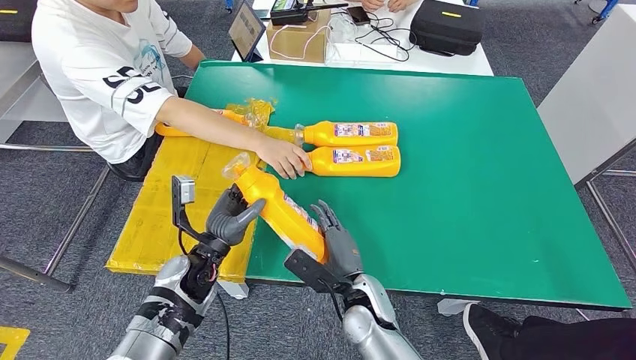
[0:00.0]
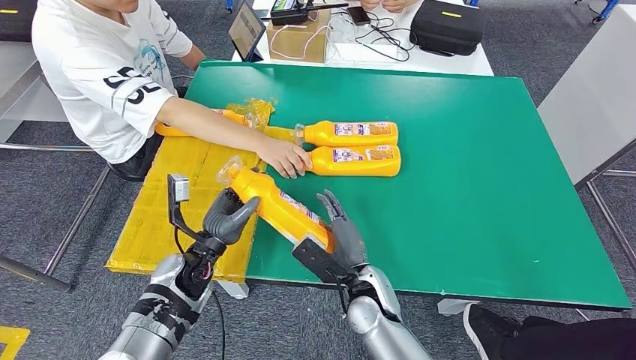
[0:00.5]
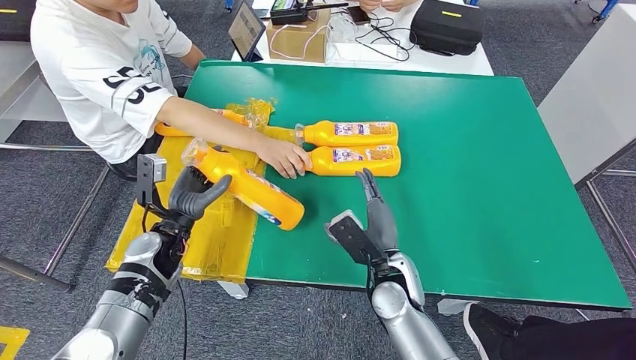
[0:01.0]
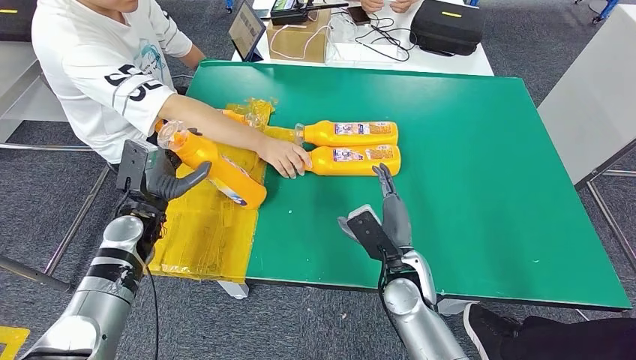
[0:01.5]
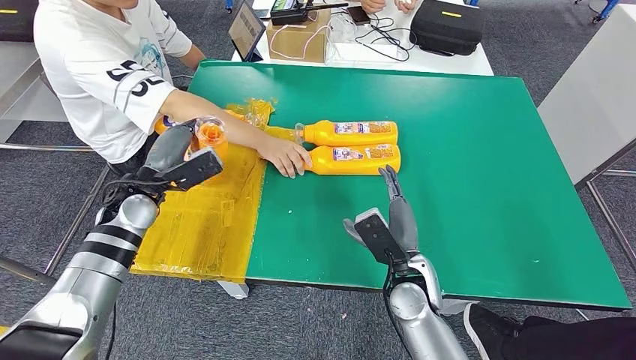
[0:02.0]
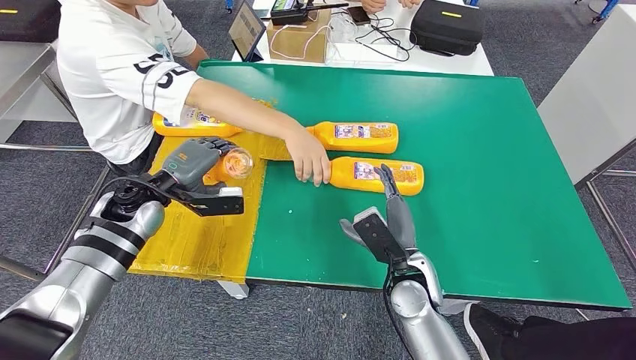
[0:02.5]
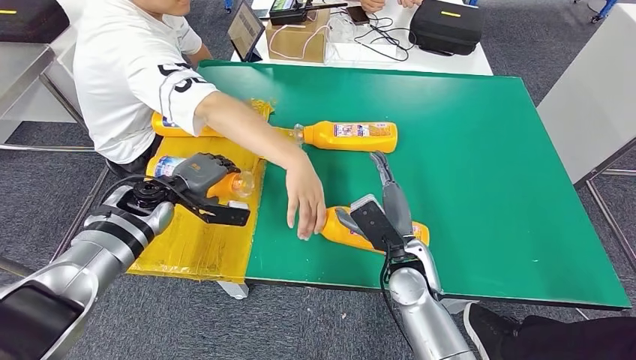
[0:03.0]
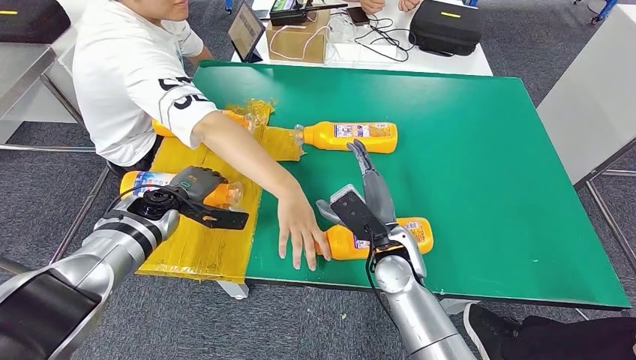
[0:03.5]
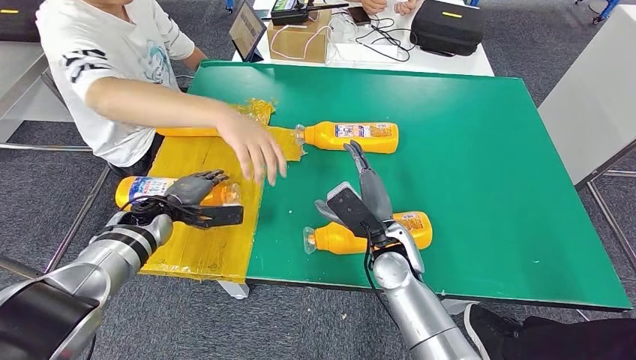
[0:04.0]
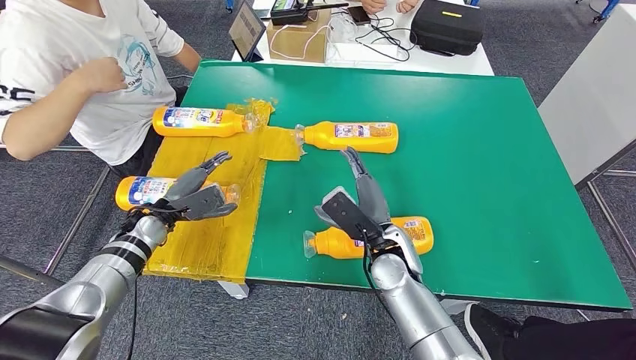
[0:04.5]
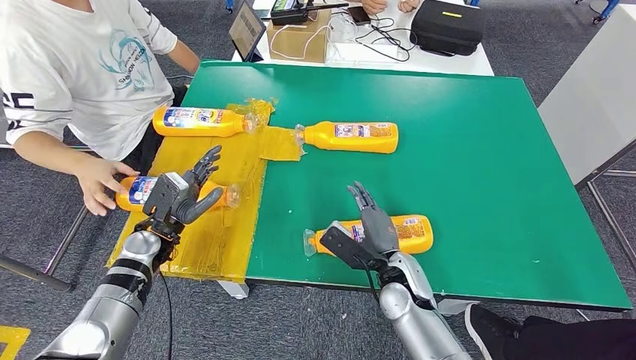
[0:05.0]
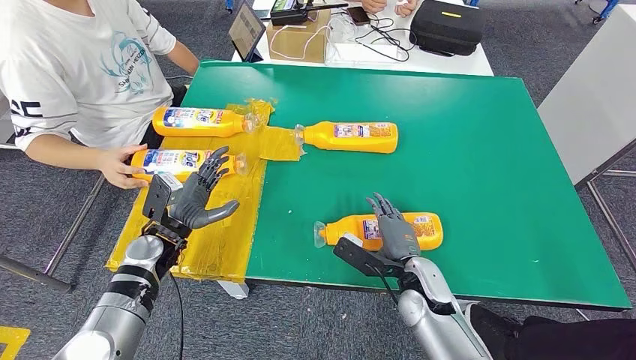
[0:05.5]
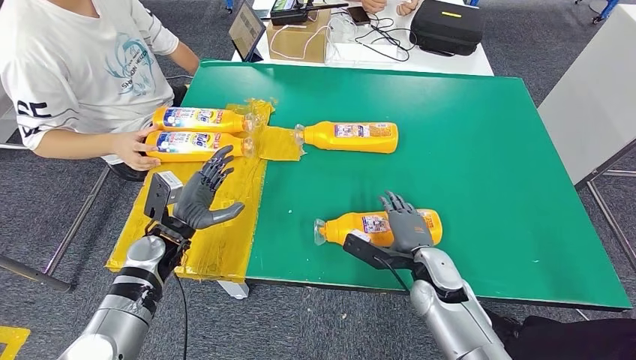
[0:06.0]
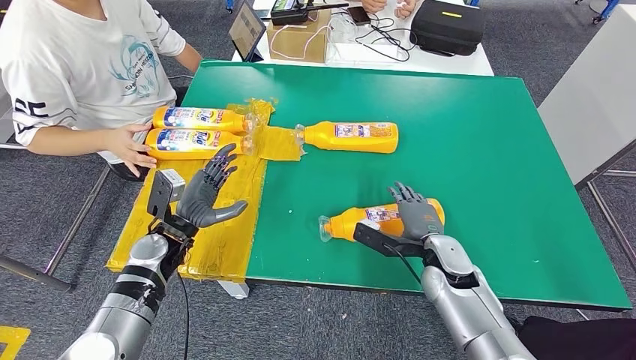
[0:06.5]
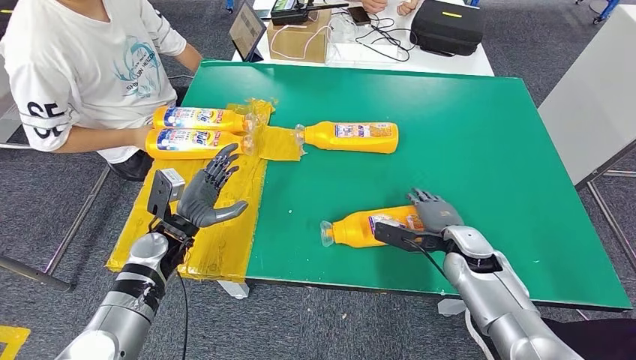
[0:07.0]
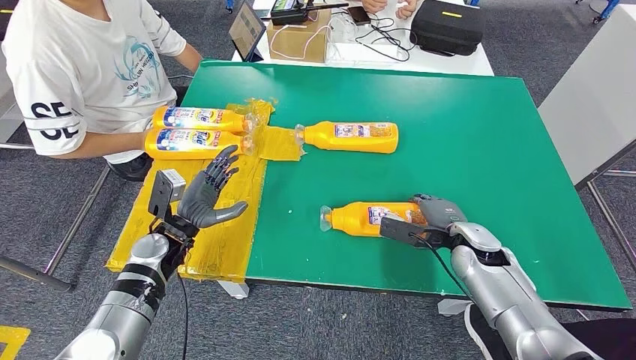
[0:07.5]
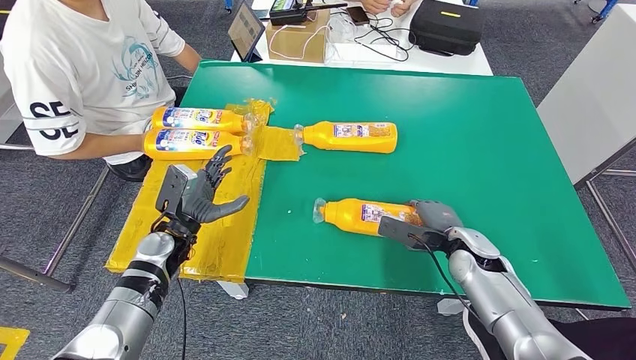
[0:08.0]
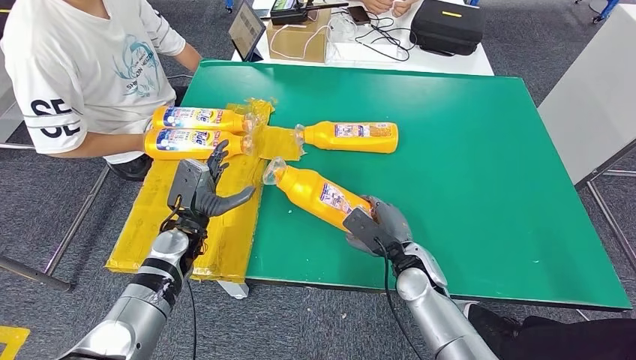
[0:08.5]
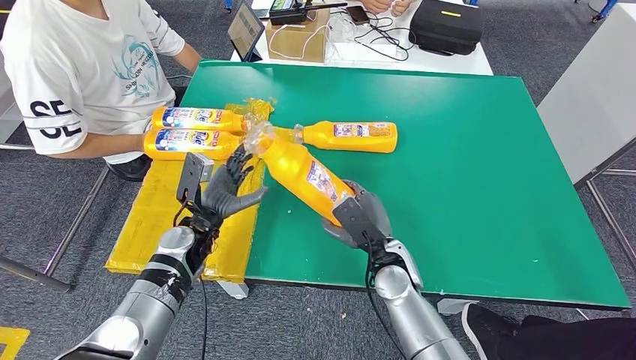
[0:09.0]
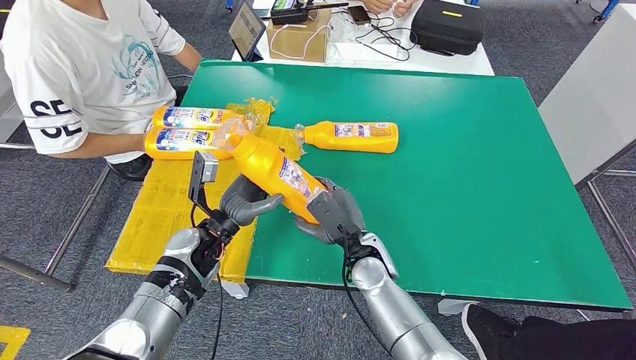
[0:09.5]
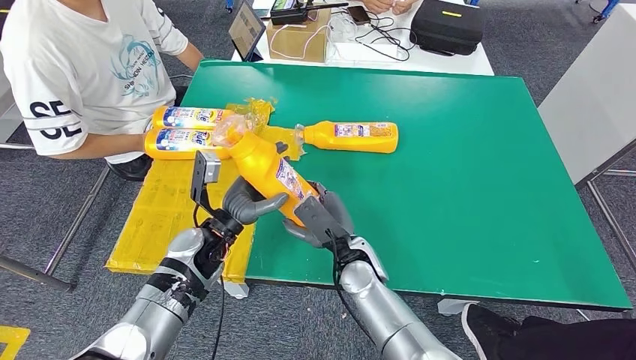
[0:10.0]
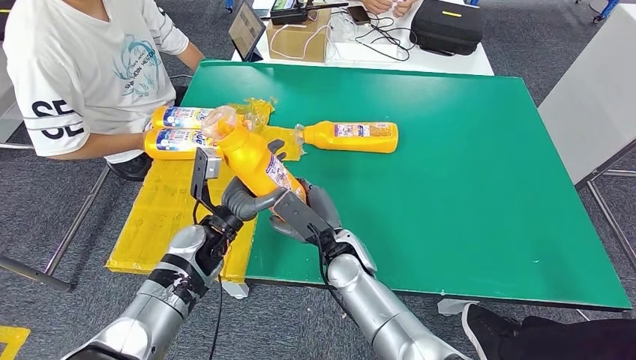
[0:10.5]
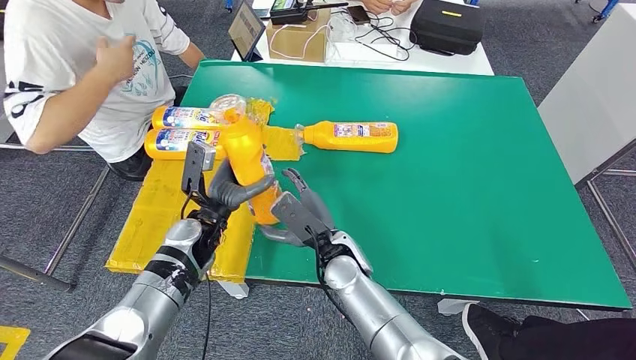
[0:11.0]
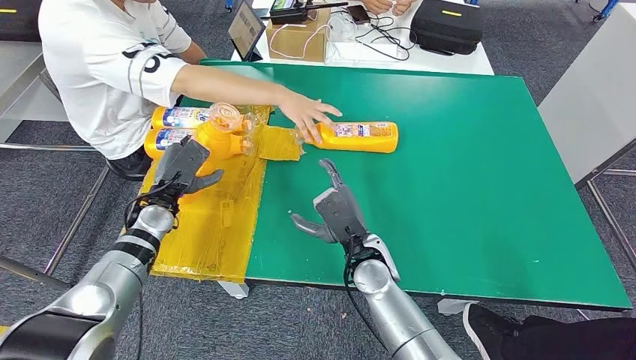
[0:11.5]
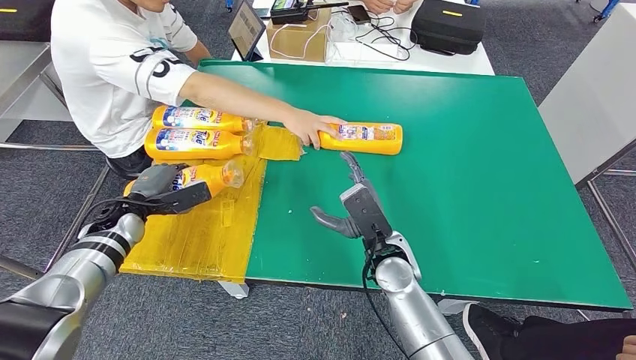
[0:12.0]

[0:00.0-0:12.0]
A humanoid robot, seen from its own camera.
Step, 0:00.0 to 0:04.5: Flip the fast-moving consumer goods bottle to the front side.
Step, 0:07.5 to 0:09.5: Pick up the fast-moving consumer goods bottle from the table.
0:06.0 to 0:08.0: The right hand travels to the right by approximately 5 cm.

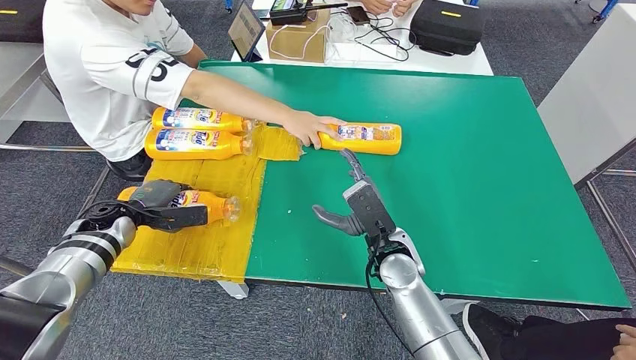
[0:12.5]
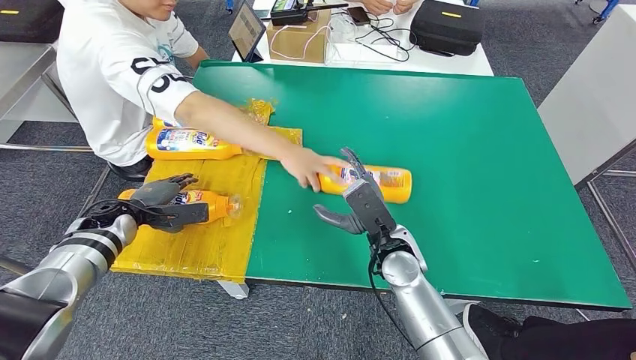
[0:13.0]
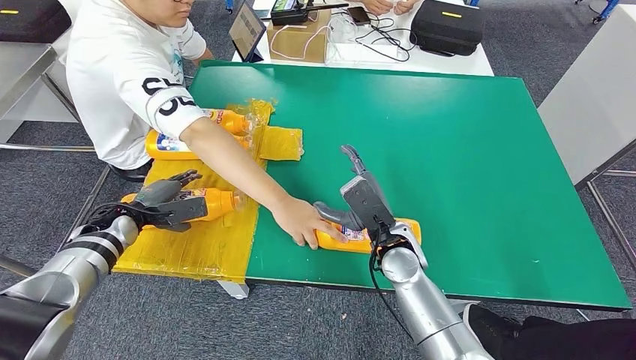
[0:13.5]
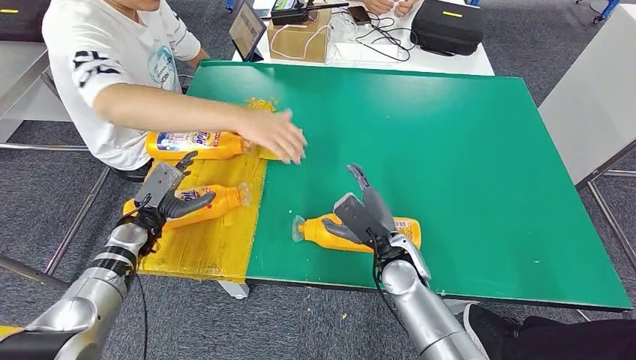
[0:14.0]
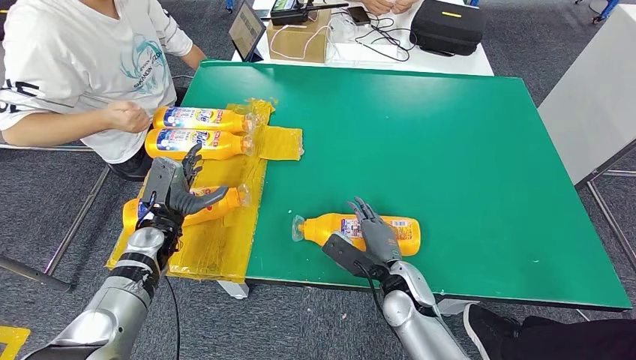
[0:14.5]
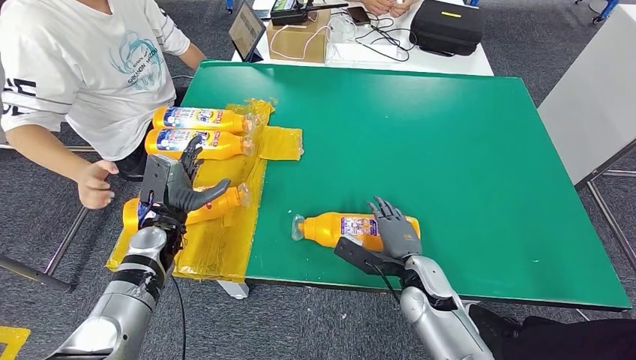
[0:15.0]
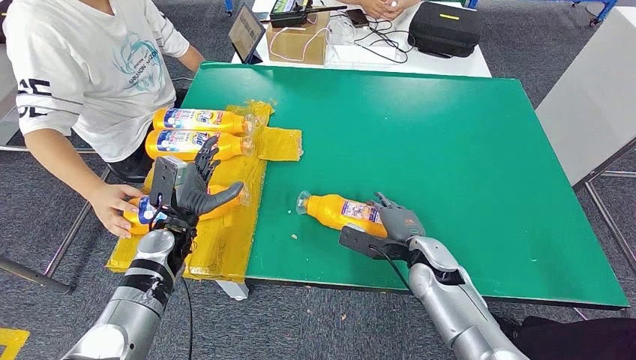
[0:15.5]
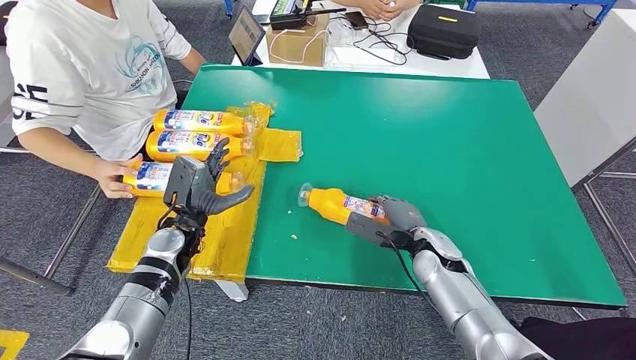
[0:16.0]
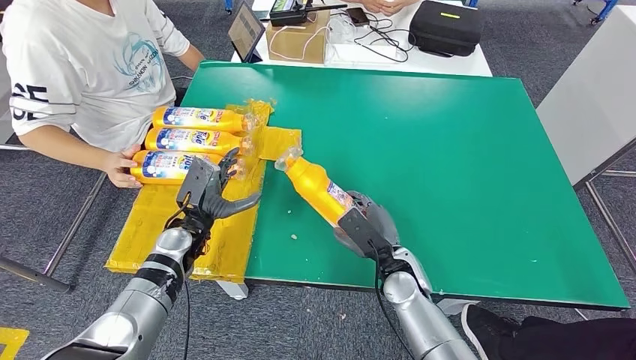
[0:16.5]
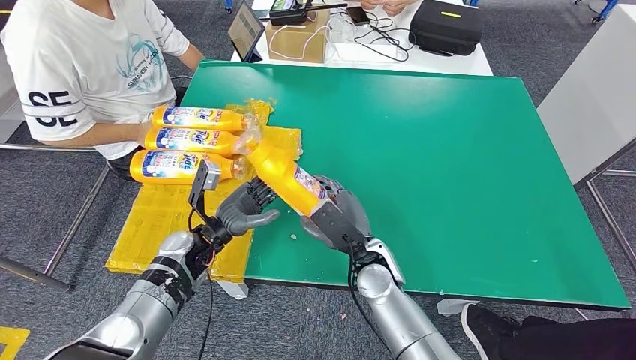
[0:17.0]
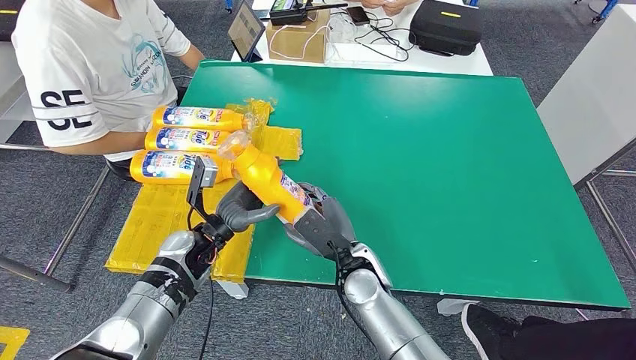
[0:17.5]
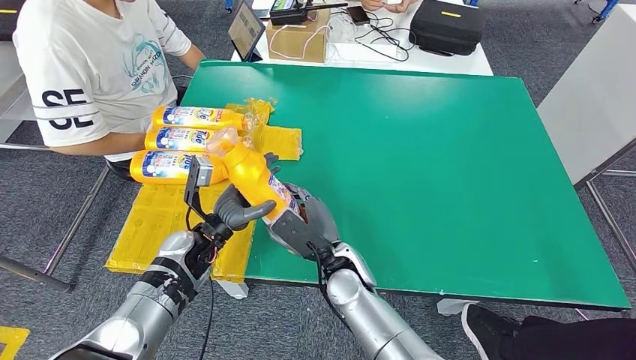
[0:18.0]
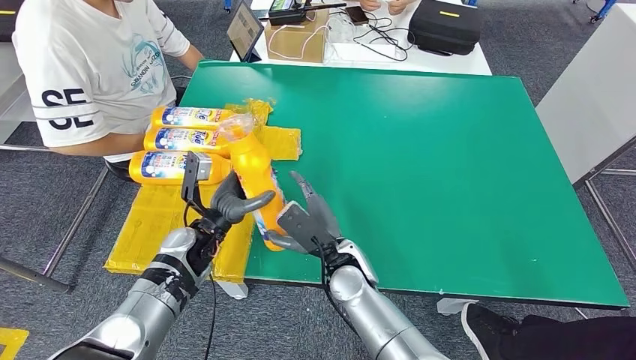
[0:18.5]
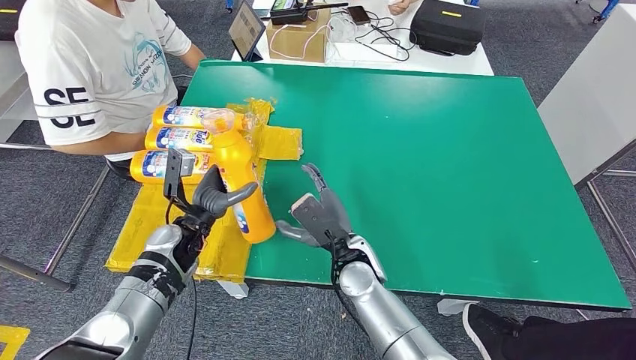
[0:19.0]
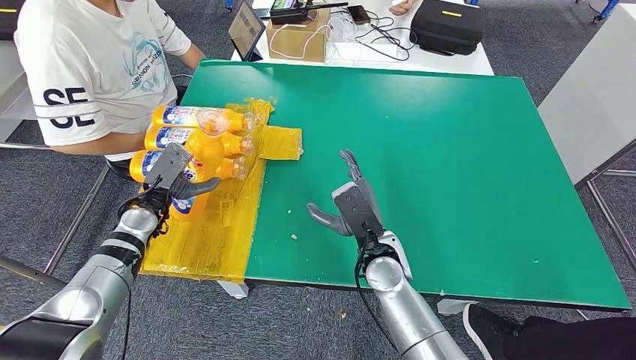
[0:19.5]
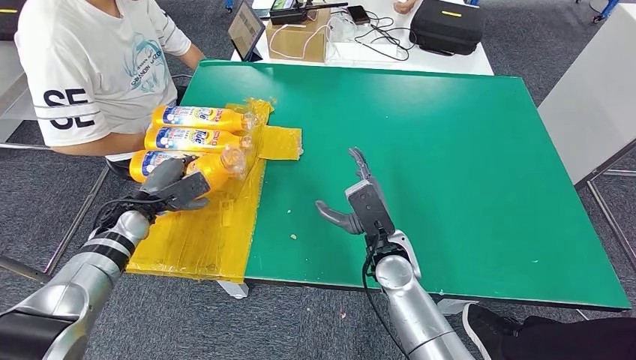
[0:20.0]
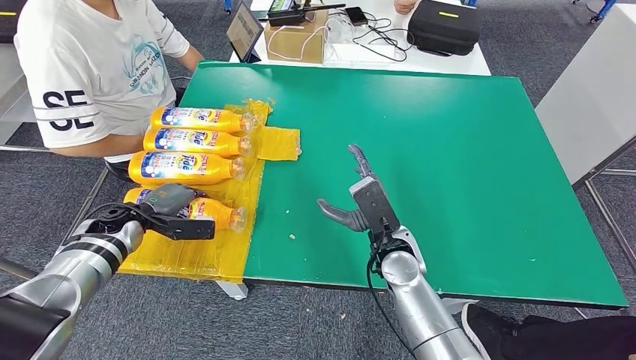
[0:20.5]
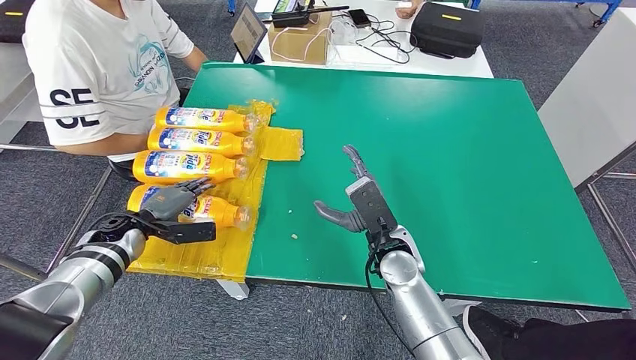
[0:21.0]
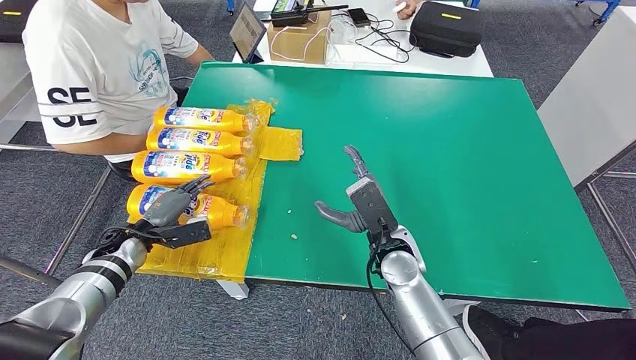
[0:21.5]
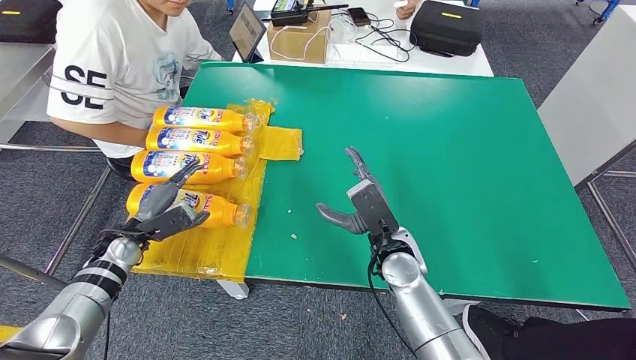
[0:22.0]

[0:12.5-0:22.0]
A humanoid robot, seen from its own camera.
Step, 0:16.0 to 0:17.0: Pick up the fast-moving consumer goods bottle from the table.
Step, 0:18.5 to 0:22.0: Flip the fast-moving consumer goods bottle to the front side.
0:18.0 to 0:20.0: The left hand is displaced to the left by about 15 cm. Meanwhile the right hand moves to the right, roughly 10 cm.
